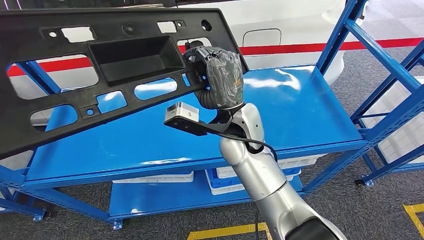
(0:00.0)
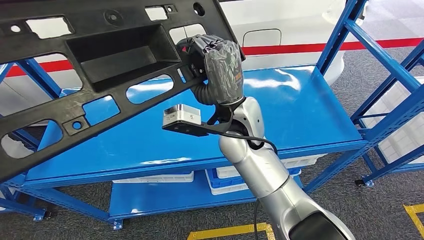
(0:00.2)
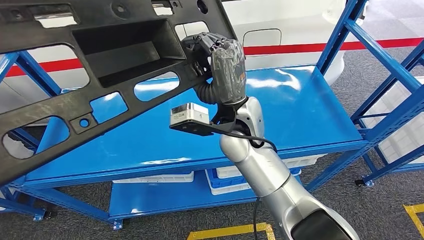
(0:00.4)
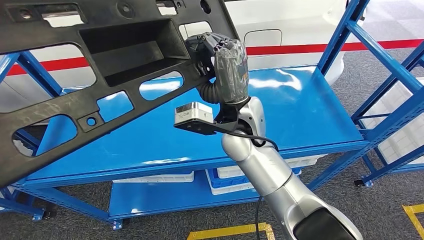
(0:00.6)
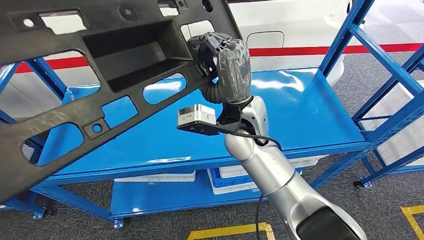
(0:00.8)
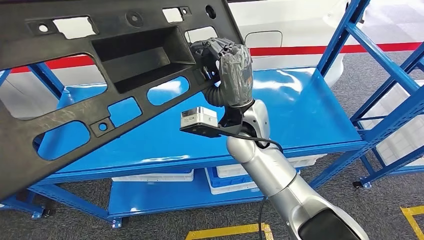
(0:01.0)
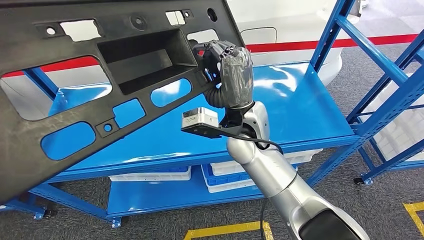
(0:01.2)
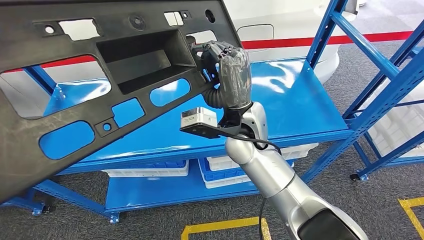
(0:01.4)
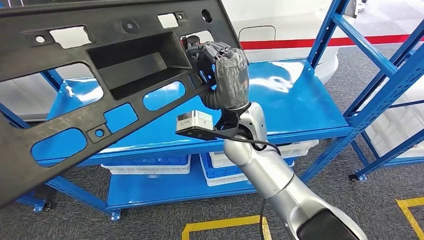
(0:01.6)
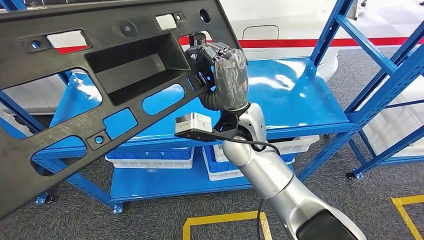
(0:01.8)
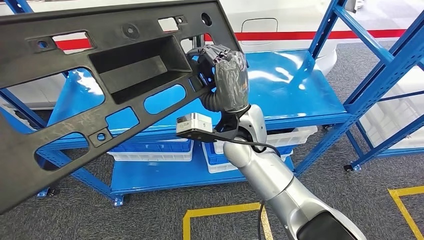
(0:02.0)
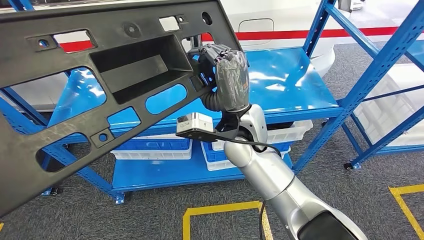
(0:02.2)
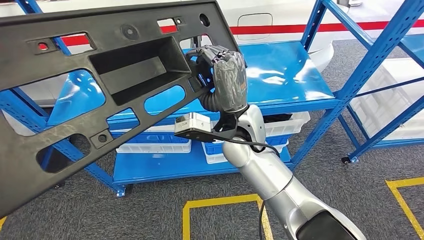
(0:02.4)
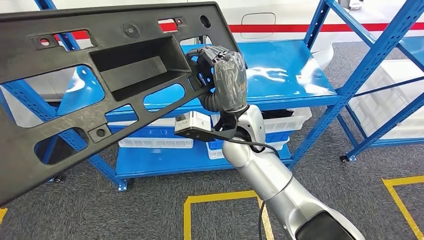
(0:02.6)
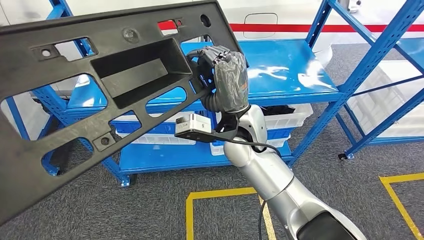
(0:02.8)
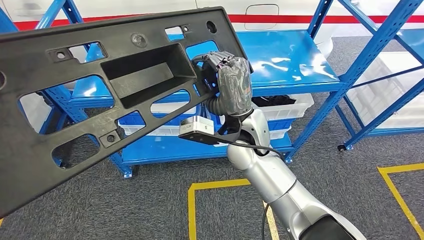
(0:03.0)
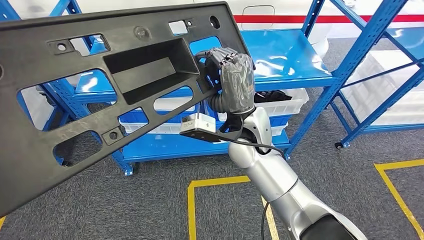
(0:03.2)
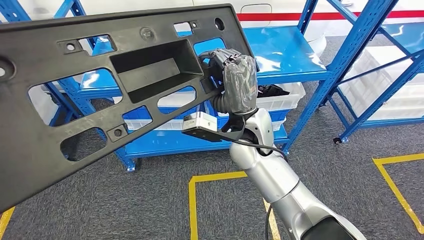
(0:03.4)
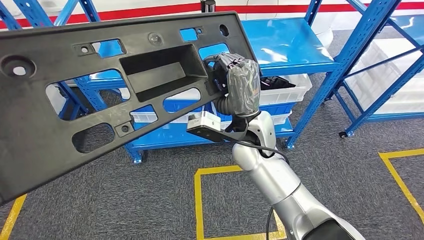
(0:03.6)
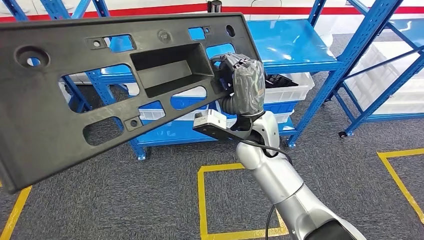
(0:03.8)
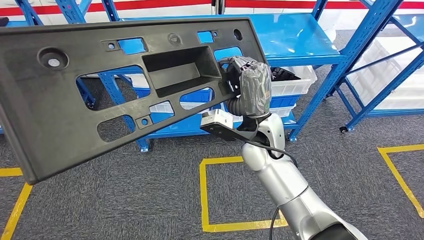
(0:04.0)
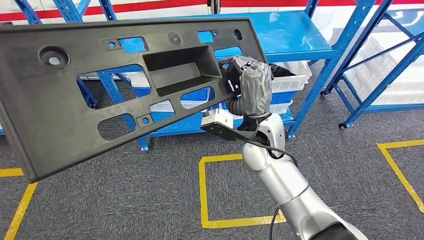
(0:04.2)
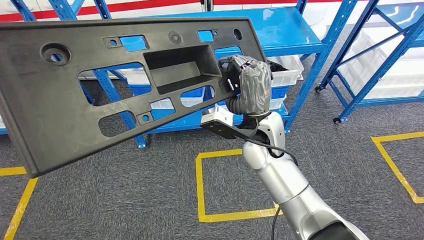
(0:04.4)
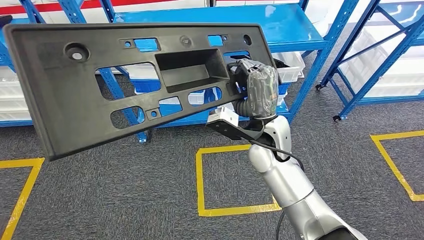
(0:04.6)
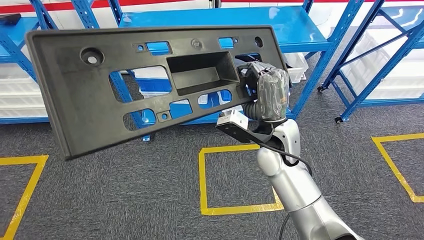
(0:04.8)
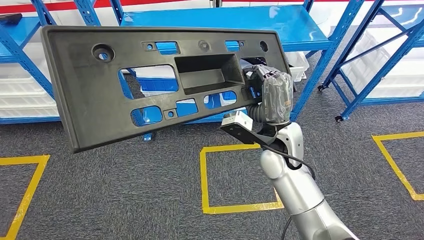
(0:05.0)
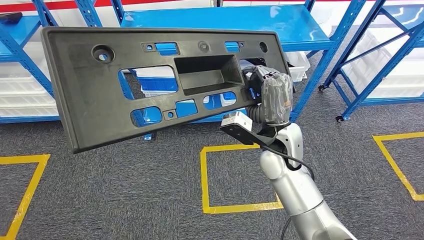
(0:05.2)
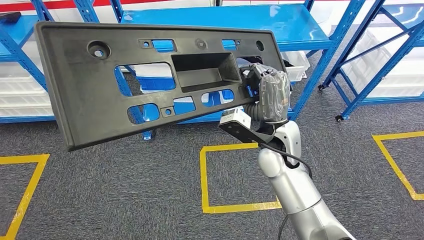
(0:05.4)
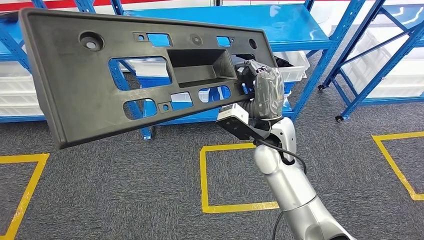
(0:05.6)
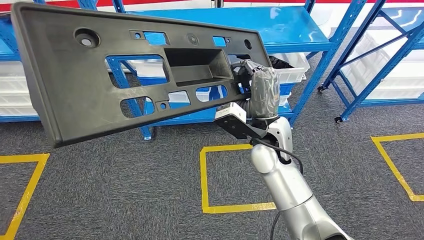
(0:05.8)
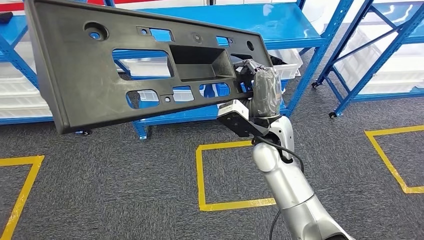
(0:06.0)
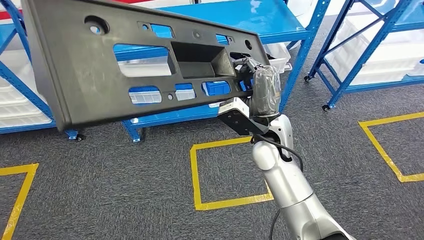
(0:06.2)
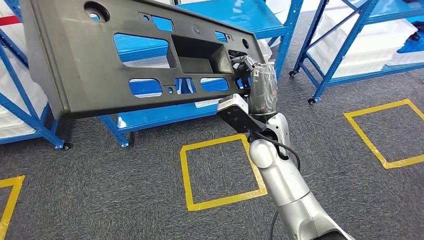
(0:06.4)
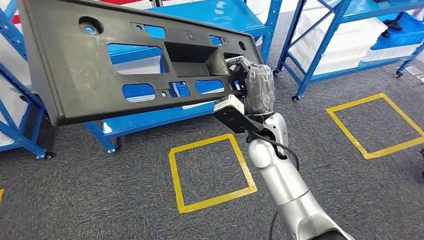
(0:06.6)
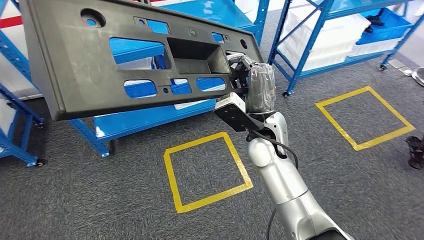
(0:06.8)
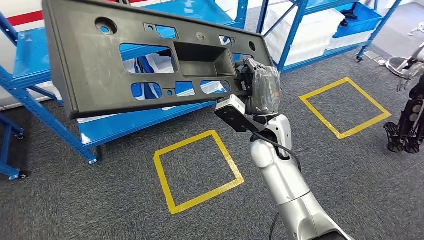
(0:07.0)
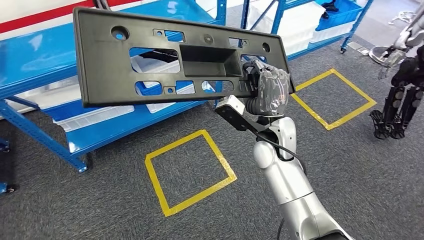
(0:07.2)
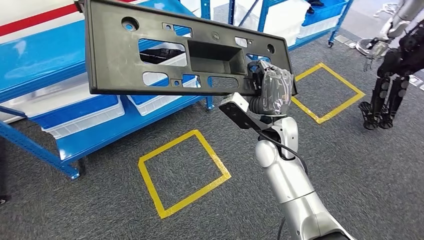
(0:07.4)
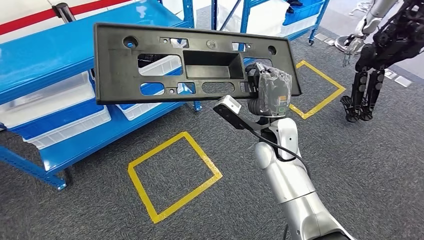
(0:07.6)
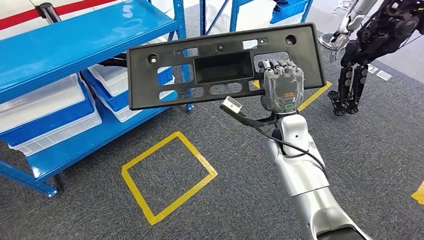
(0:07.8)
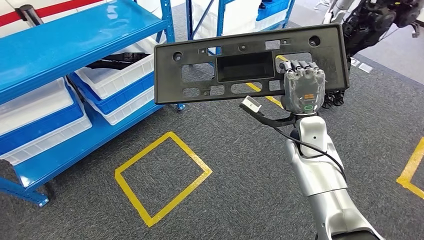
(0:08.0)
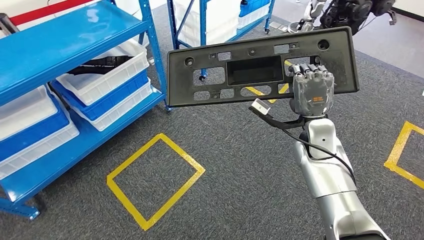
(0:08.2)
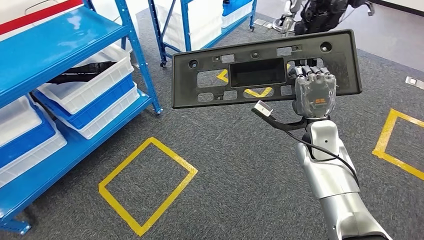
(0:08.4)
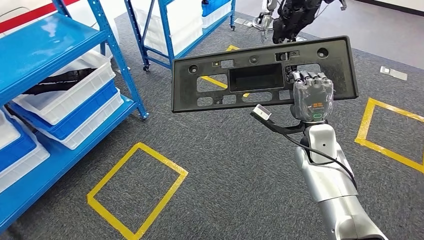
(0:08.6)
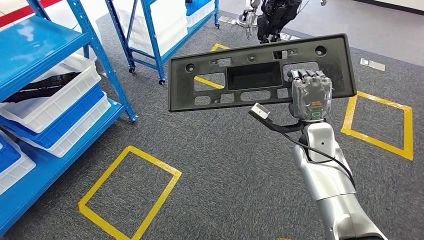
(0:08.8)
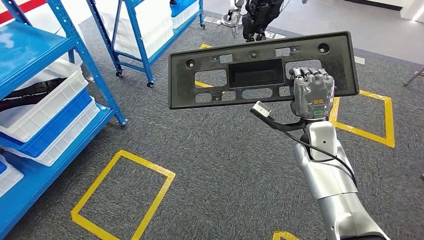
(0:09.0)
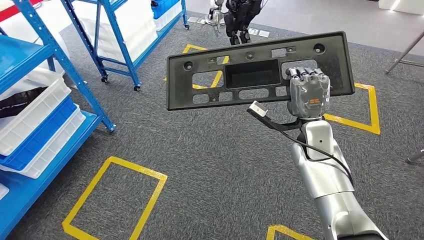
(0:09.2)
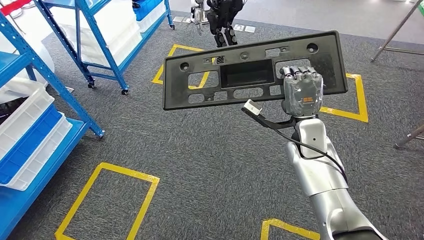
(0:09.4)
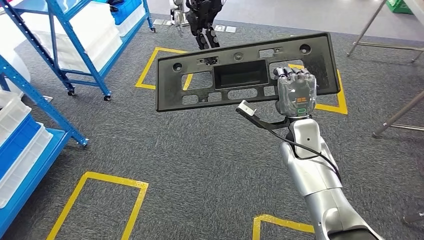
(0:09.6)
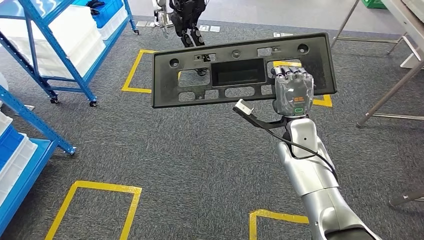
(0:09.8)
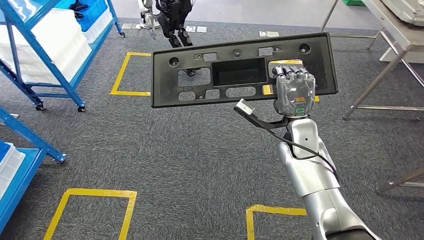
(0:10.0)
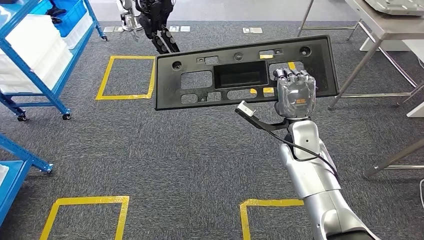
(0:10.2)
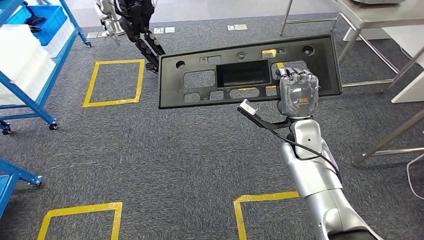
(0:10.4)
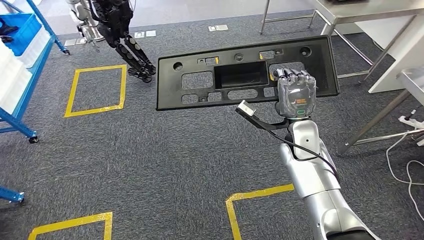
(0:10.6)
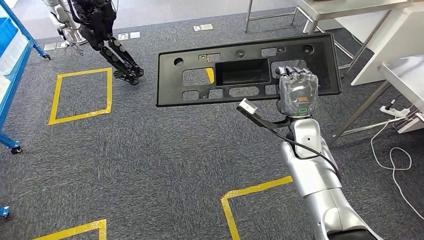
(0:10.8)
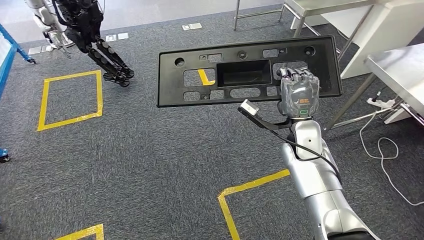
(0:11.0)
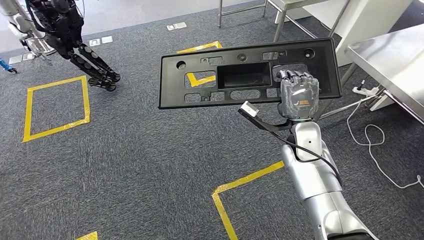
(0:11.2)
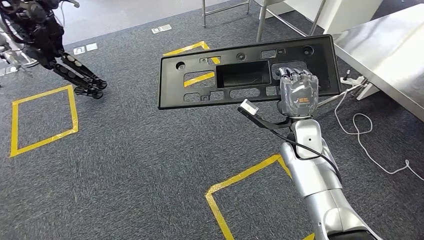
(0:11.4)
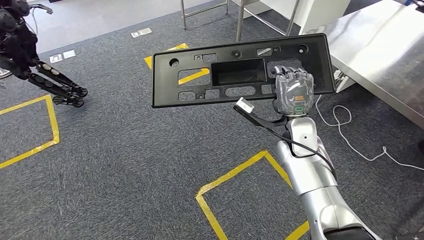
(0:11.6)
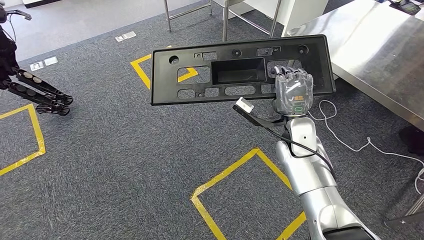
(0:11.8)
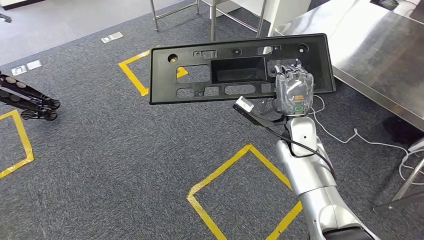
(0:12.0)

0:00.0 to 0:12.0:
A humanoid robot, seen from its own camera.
Step, 0:00.0 to 0:02.2: Pick up the large material from the shelf.

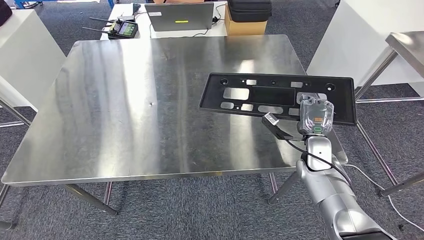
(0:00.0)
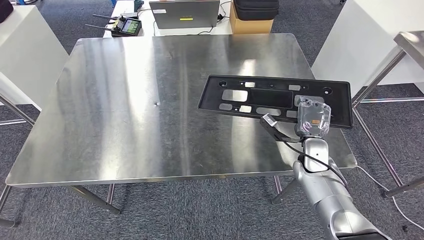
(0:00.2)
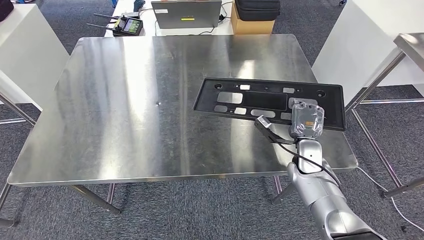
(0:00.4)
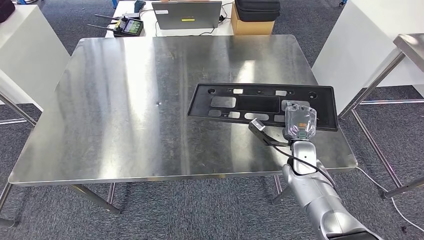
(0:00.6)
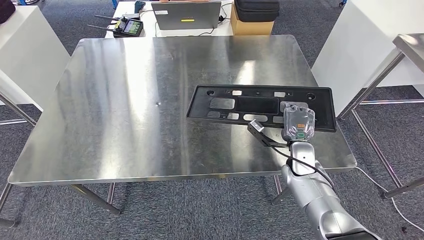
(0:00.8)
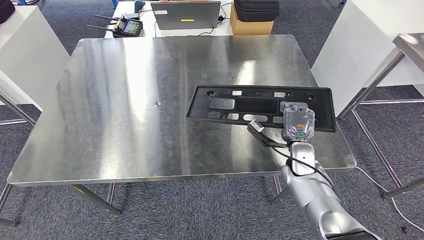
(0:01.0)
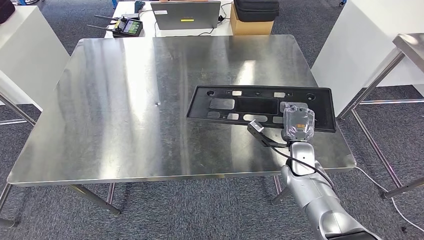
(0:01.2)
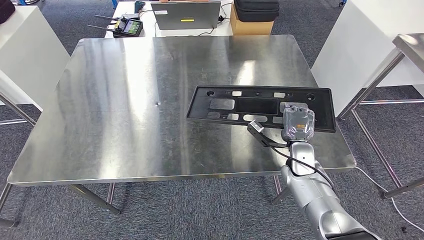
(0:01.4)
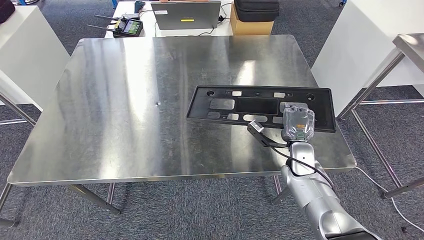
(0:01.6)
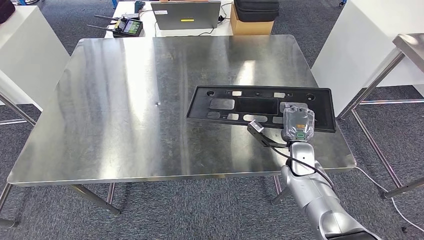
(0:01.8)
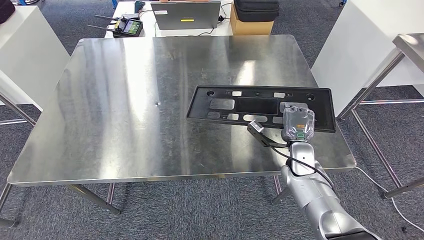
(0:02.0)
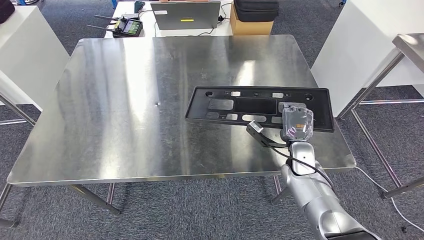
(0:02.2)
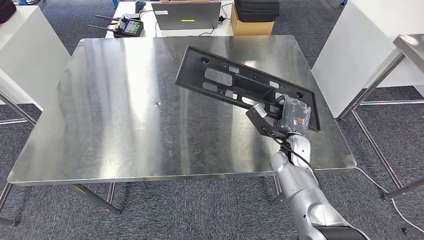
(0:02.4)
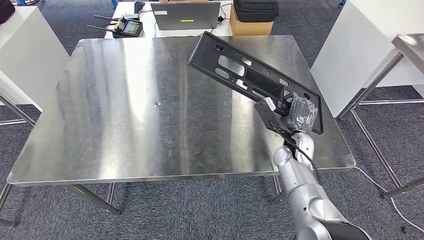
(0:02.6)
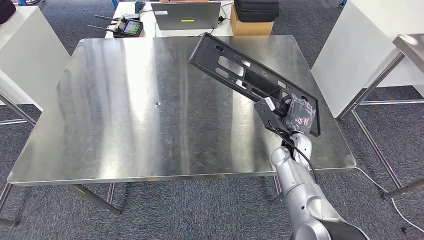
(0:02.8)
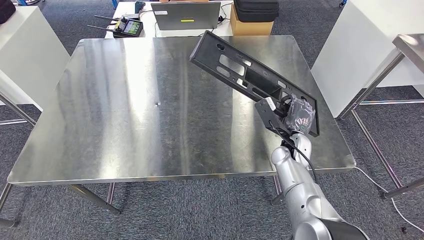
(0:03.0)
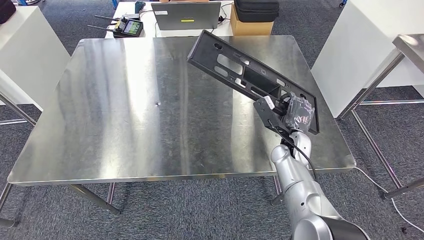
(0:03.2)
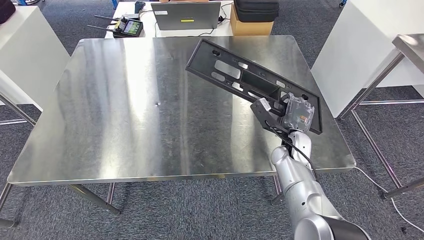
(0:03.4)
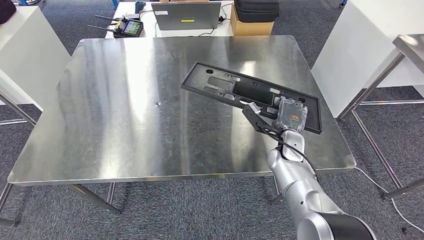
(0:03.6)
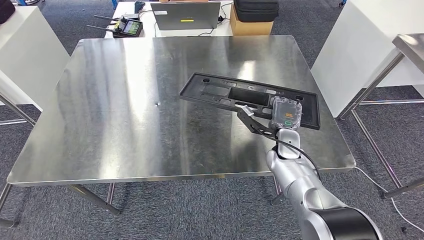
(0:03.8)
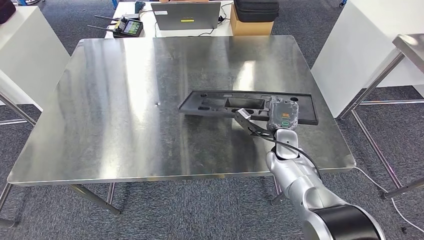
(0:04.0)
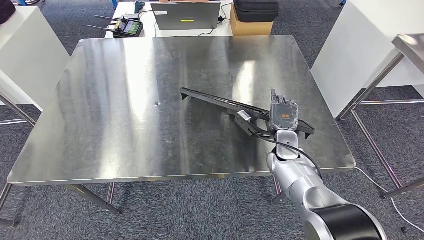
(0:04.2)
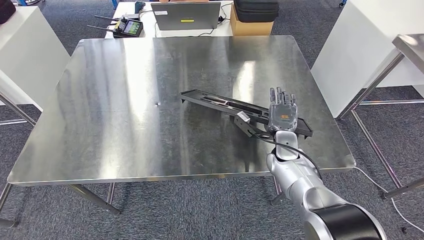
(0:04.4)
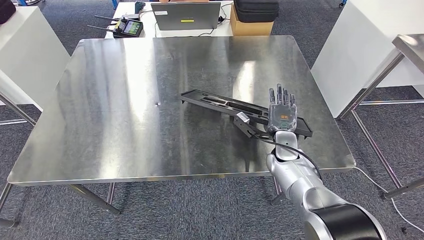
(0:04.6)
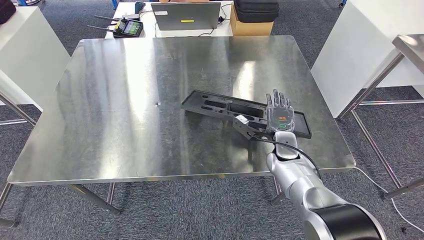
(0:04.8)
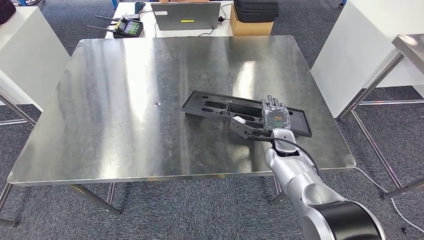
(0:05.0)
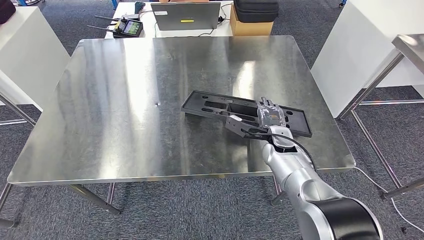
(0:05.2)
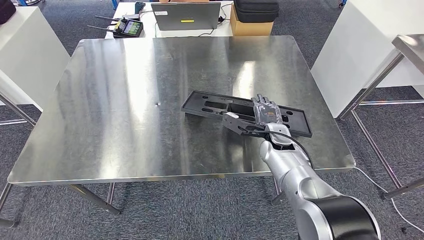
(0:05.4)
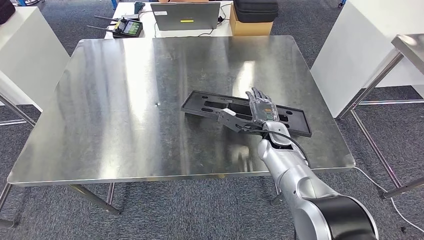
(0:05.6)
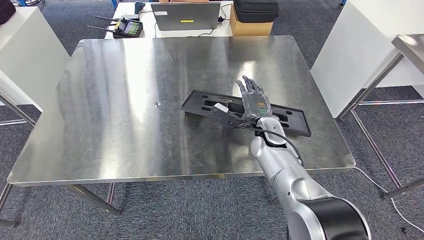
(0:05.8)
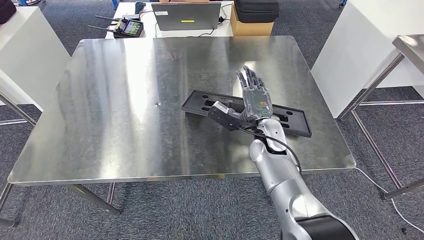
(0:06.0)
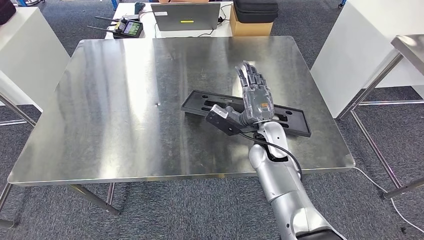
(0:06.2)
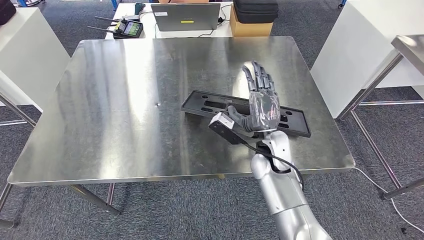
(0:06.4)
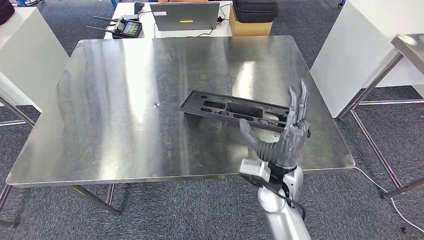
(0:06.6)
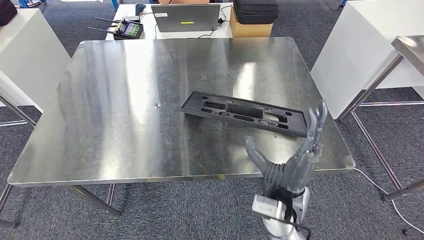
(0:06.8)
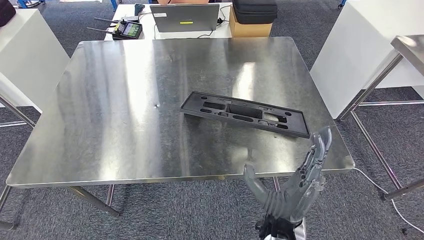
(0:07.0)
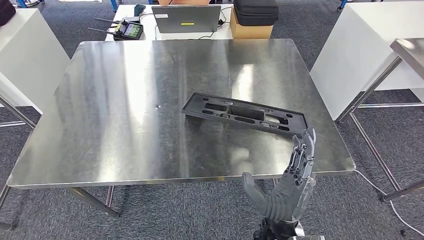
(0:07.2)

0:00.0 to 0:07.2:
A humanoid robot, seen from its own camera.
0:04.4 to 0:05.8: The right hand moves about 5 cm.
0:05.8 to 0:07.2: The right hand goes approximately 25 cm backward.
